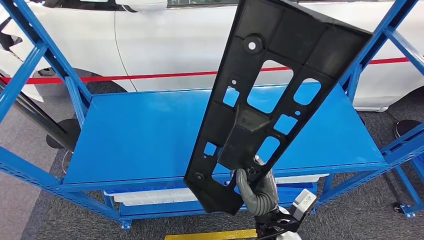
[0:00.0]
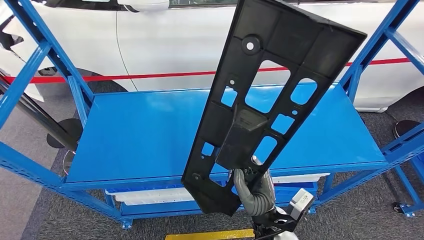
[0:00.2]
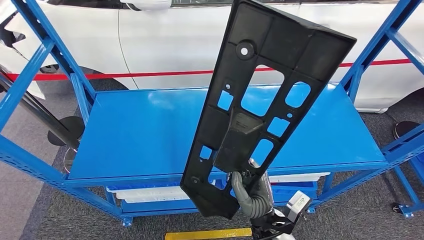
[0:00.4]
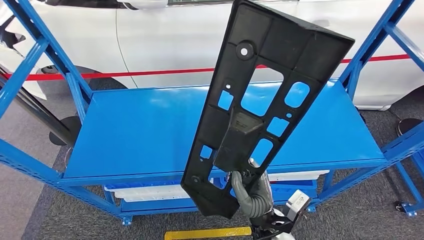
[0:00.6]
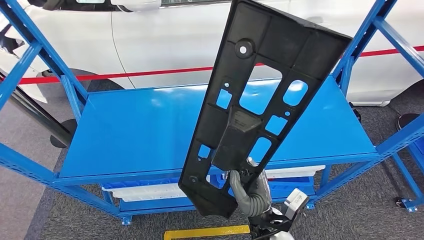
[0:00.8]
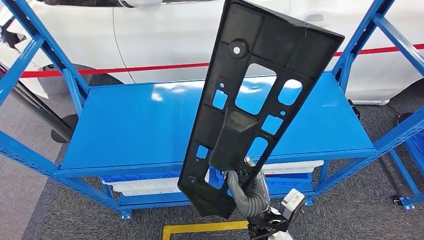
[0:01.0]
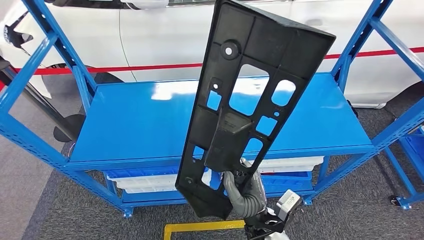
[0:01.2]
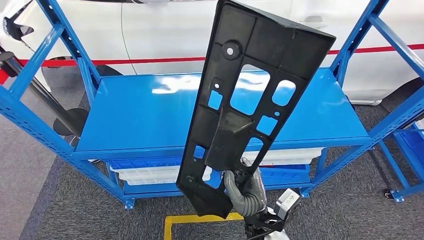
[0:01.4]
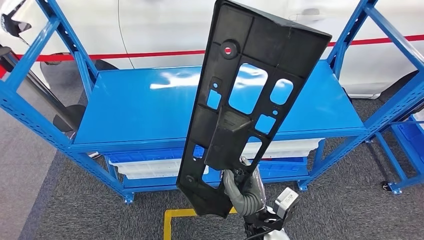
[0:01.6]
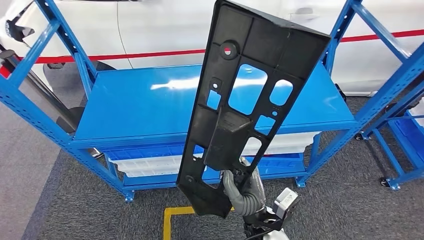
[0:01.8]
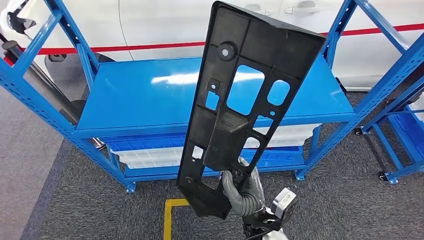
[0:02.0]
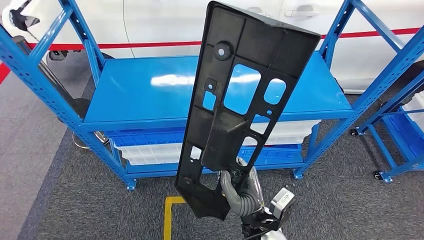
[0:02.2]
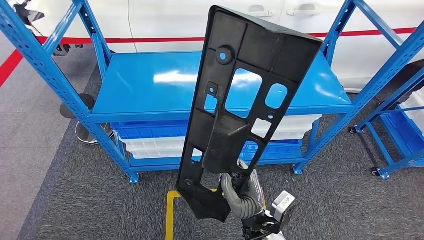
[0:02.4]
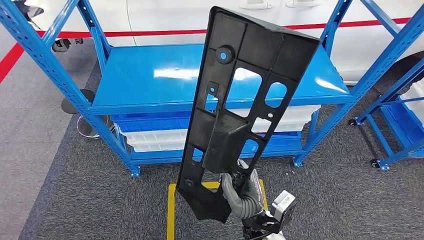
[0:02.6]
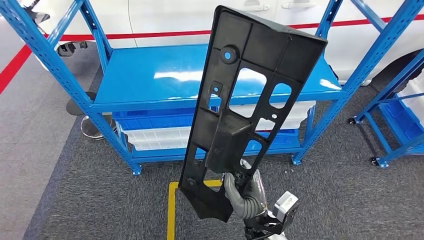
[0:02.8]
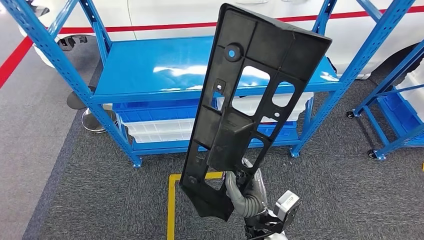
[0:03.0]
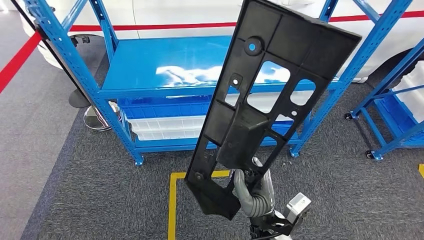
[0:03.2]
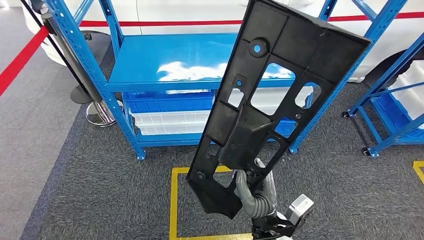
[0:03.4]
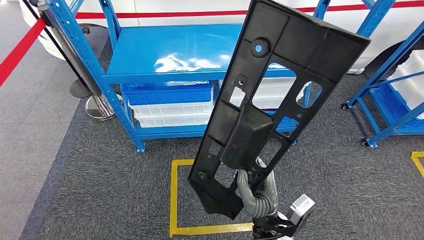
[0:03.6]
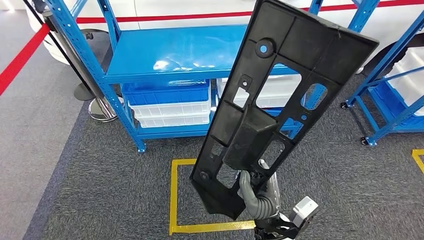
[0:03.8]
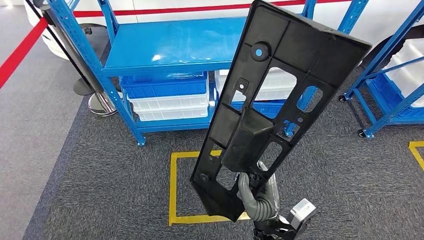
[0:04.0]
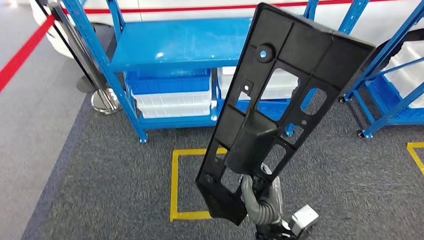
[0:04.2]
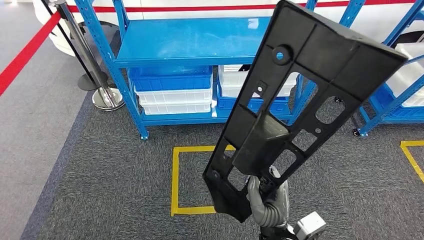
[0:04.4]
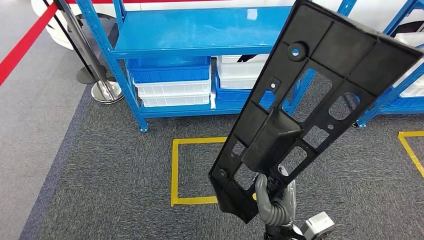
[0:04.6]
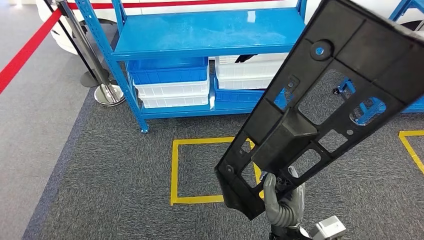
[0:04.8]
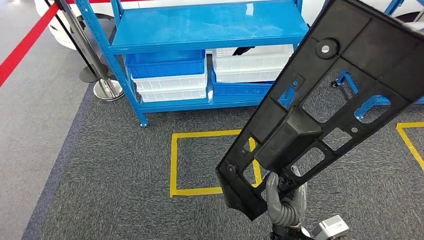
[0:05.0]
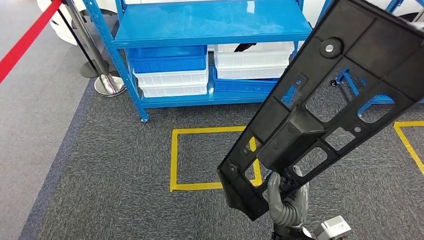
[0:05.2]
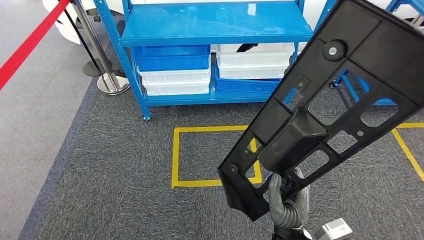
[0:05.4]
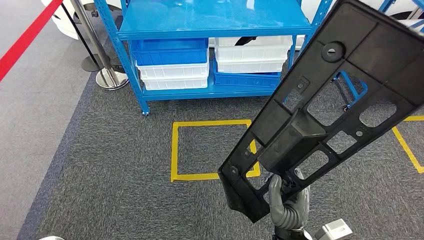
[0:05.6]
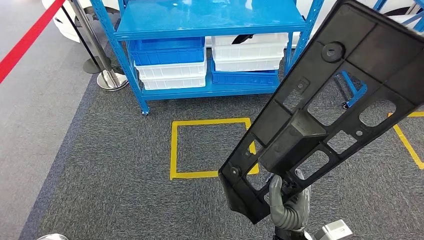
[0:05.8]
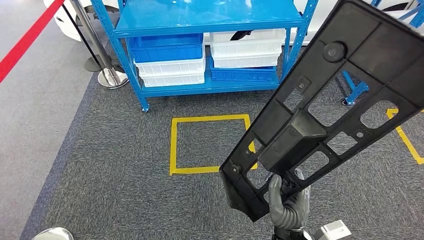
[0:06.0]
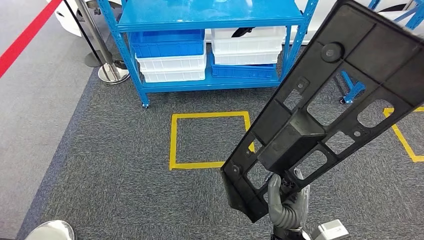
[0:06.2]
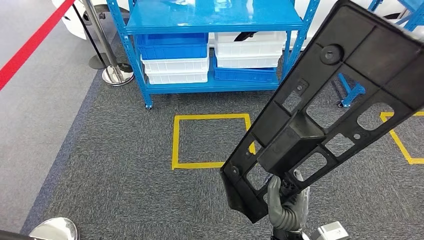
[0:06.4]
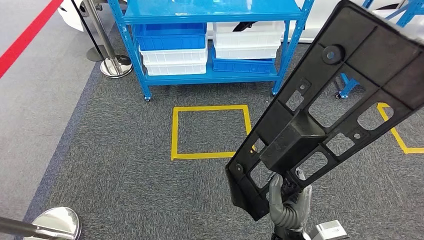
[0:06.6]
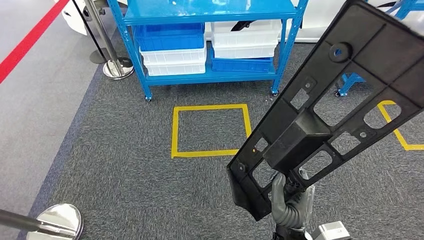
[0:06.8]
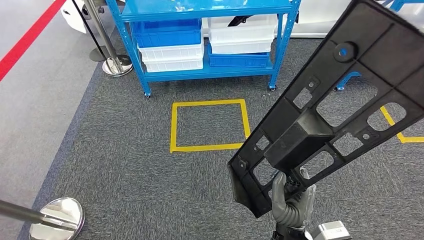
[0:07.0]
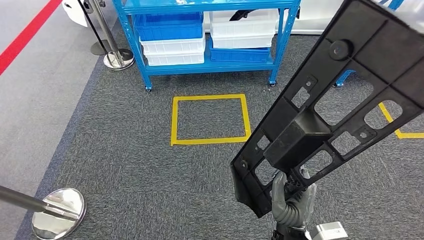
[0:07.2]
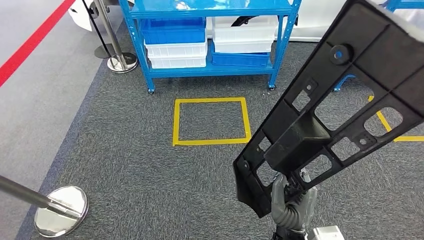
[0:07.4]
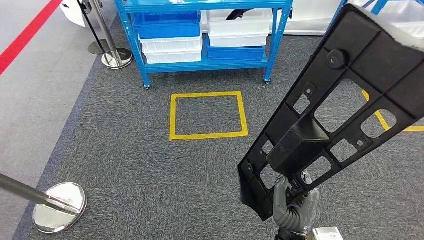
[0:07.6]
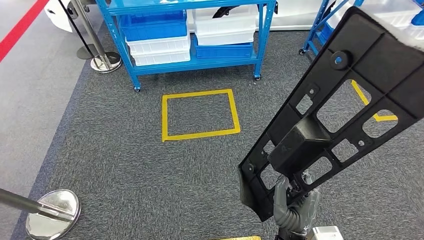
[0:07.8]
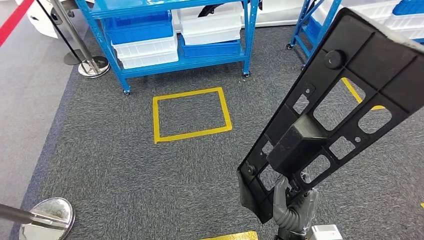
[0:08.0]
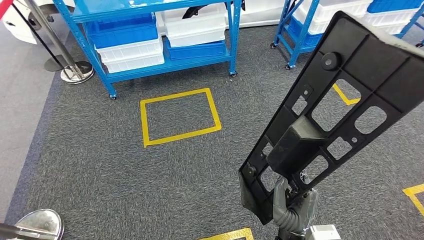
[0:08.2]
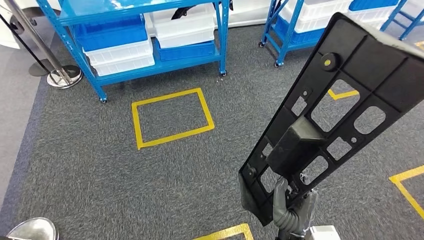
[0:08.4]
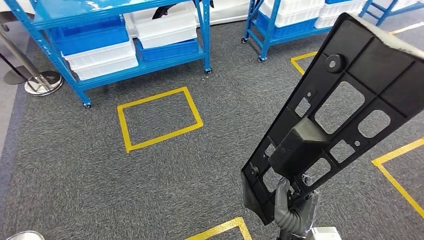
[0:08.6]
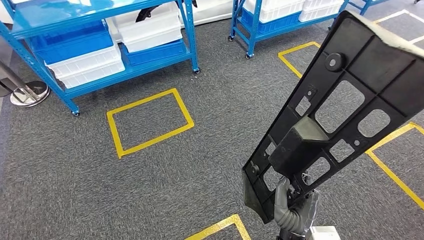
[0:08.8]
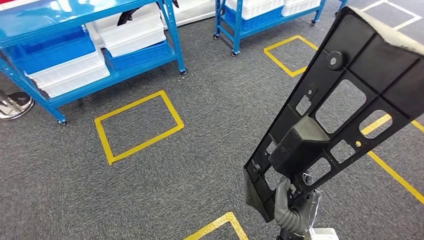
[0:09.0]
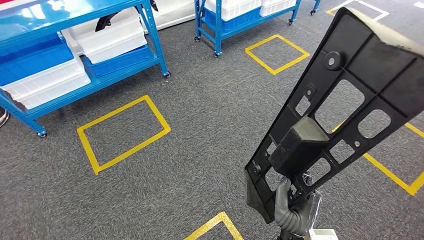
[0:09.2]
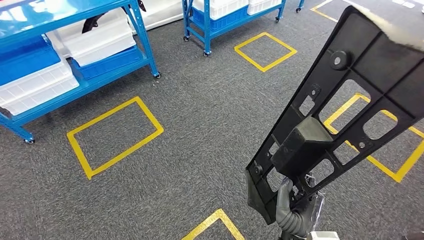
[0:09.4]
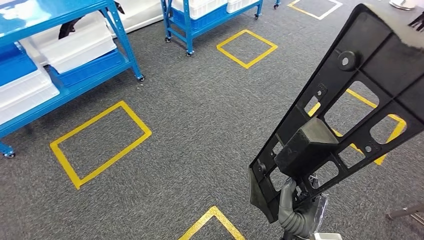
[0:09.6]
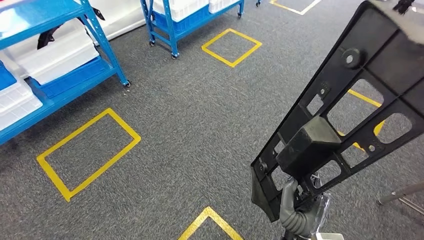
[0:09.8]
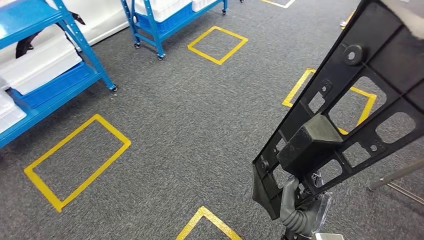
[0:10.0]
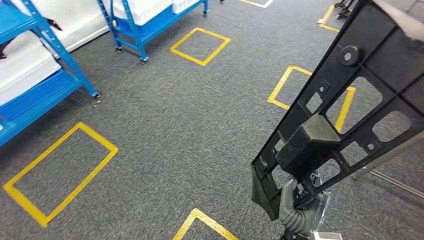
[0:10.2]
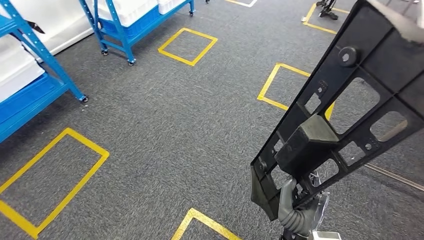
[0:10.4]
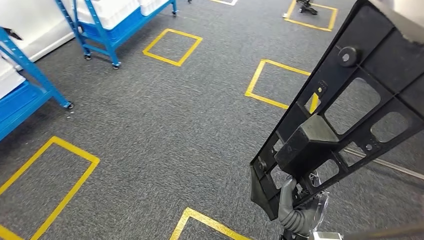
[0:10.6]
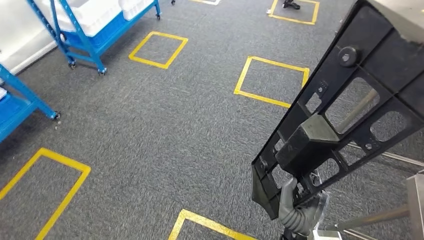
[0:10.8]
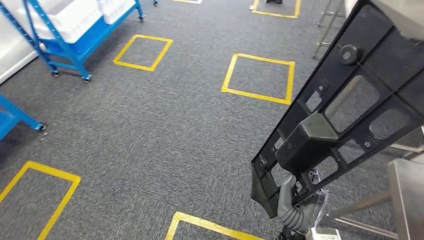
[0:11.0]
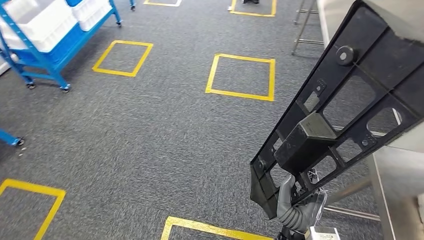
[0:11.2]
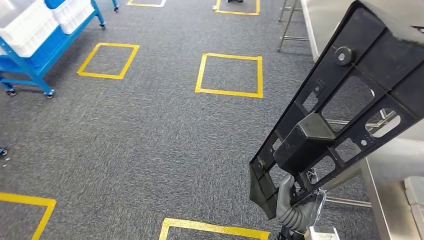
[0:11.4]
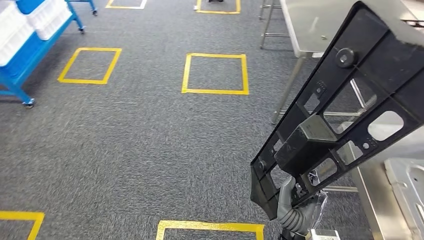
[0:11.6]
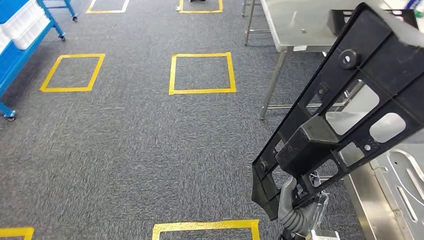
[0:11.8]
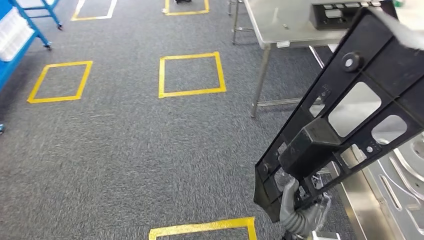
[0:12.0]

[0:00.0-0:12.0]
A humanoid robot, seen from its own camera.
Step, 0:00.0 to 0:03.0: Pick up the large material from the shelf.

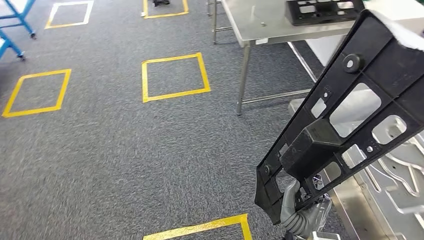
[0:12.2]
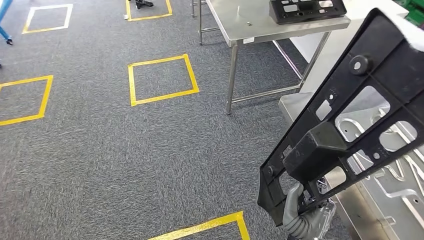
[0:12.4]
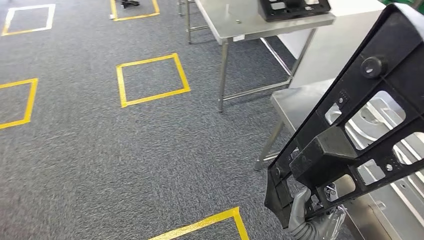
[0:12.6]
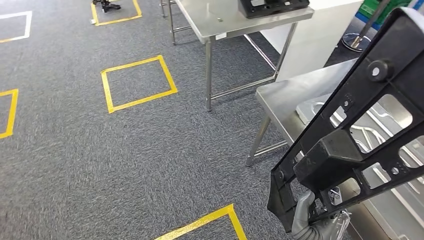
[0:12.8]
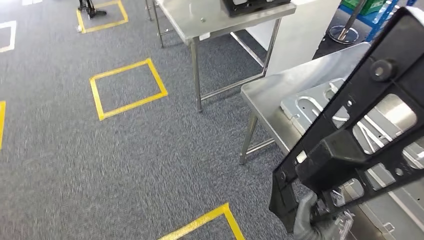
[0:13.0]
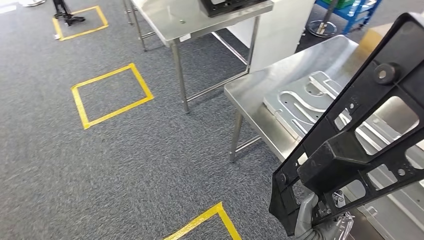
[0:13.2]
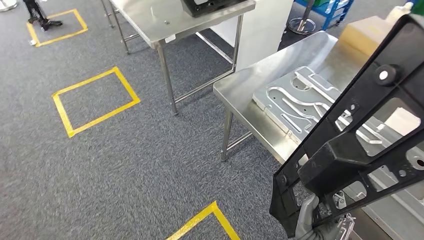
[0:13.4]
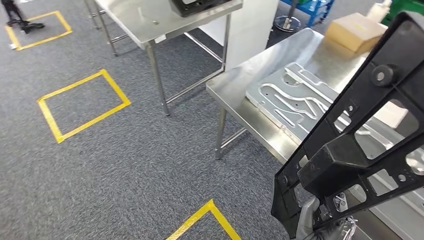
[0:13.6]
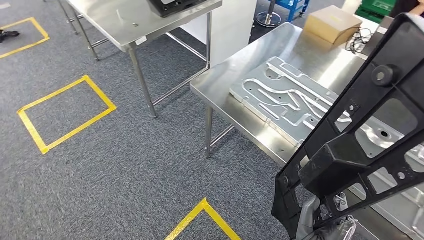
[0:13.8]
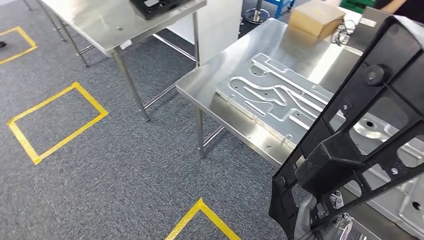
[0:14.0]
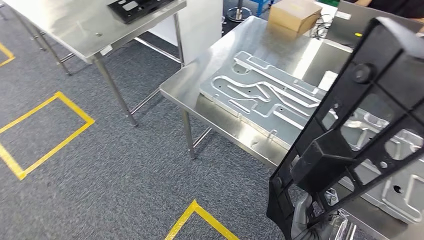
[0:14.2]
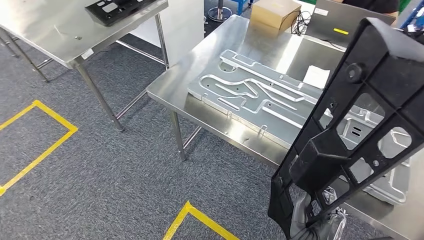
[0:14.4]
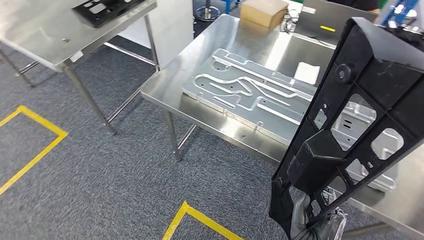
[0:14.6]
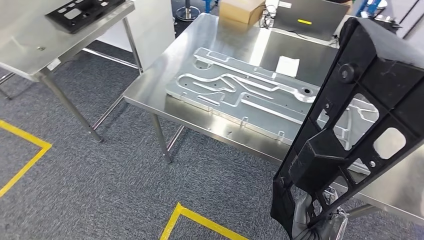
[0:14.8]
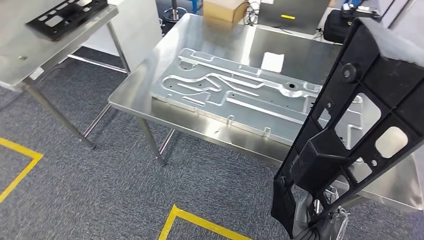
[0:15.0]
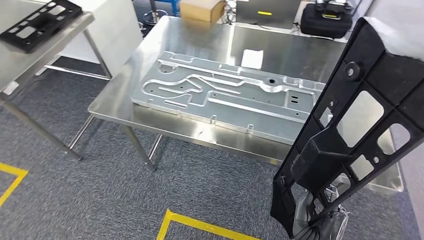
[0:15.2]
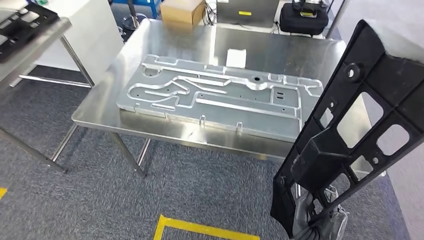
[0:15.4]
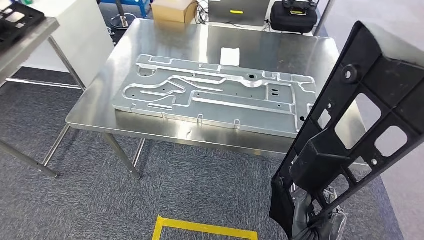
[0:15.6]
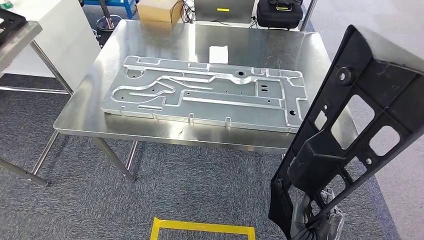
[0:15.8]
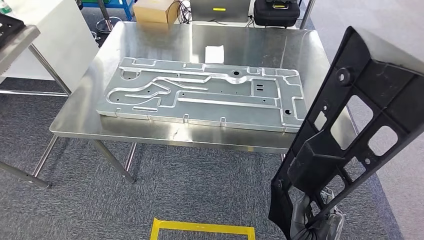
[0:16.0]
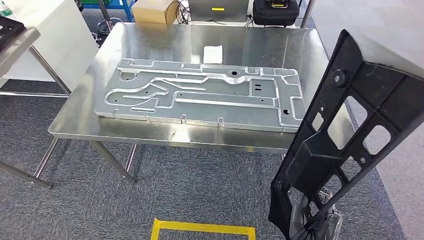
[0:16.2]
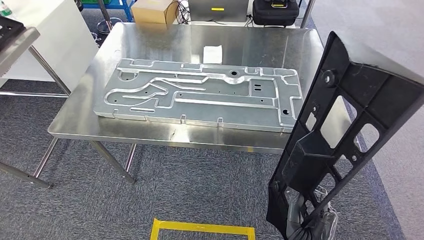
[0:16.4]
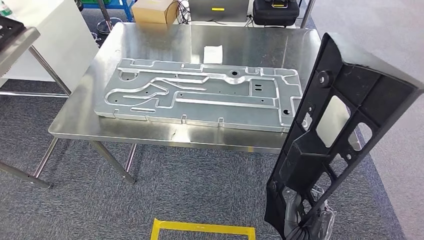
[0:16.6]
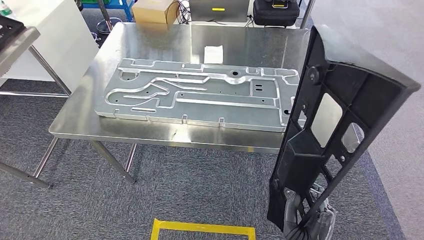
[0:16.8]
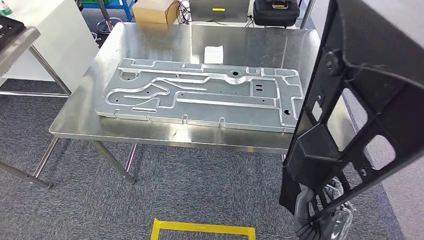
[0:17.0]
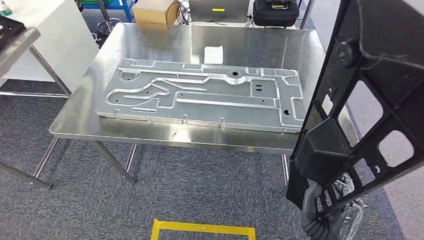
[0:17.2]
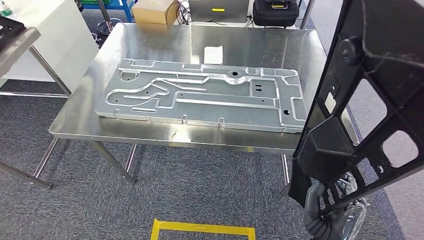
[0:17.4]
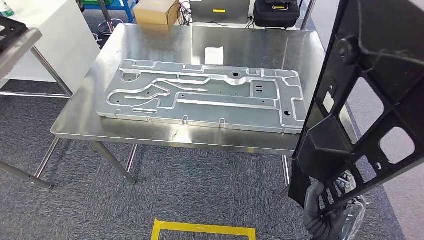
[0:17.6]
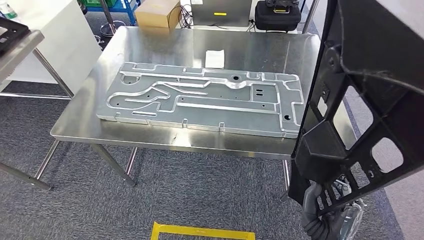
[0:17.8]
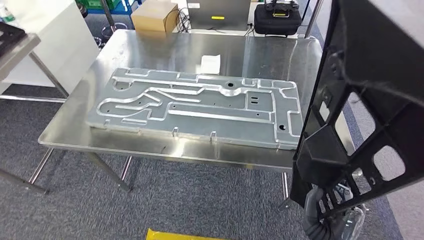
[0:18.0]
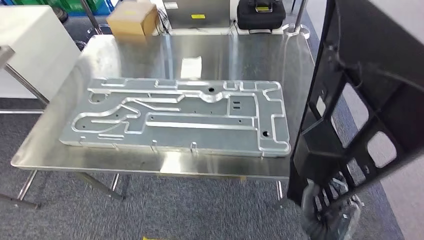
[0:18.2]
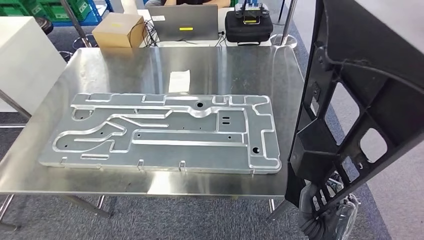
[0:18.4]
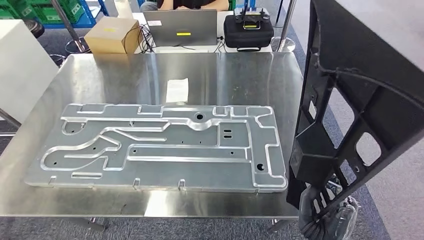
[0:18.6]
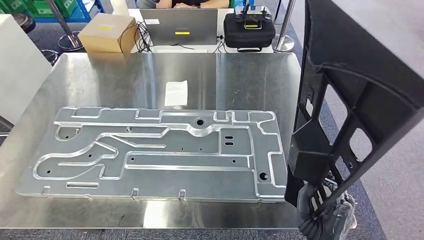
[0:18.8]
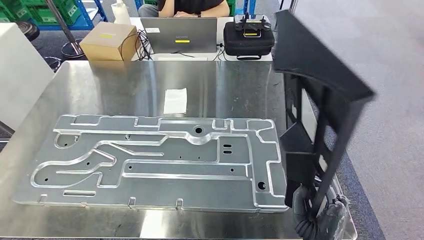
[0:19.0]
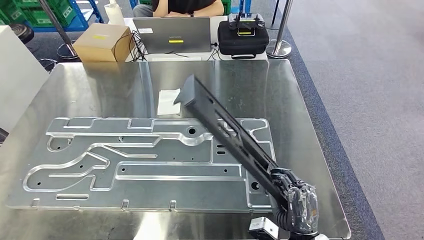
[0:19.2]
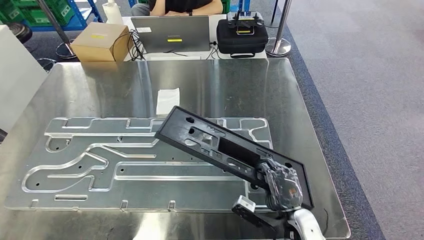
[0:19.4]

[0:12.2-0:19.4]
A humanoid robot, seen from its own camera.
Step, 0:12.2 to 0:16.2: Move the large material to the workbench.
